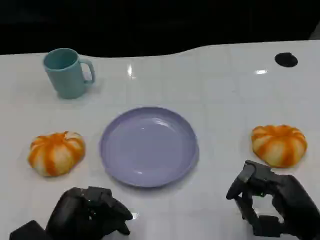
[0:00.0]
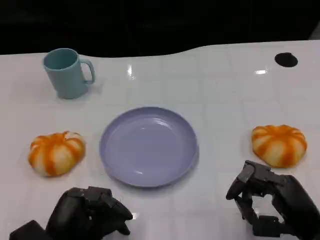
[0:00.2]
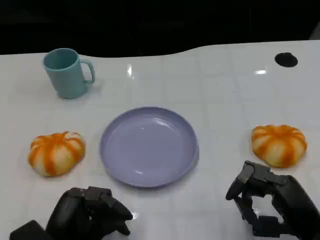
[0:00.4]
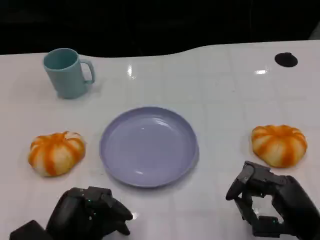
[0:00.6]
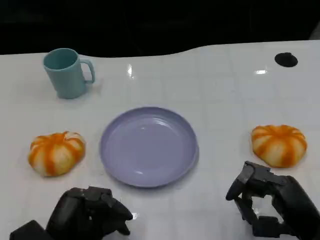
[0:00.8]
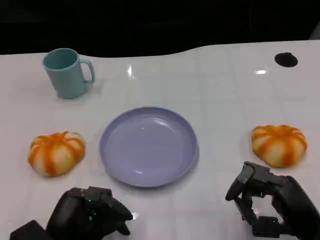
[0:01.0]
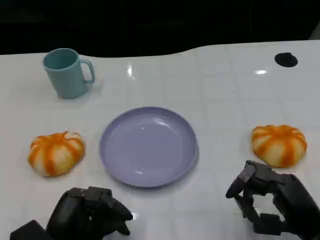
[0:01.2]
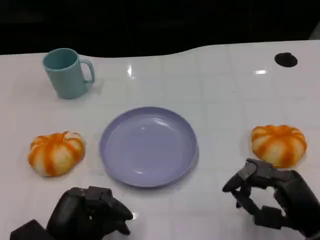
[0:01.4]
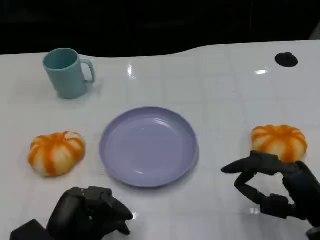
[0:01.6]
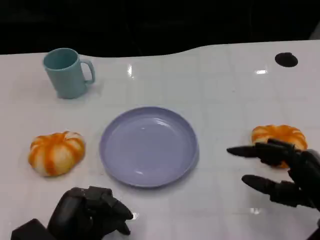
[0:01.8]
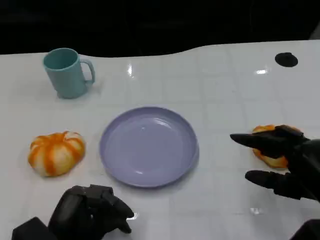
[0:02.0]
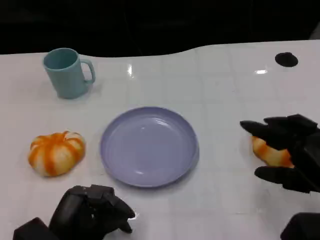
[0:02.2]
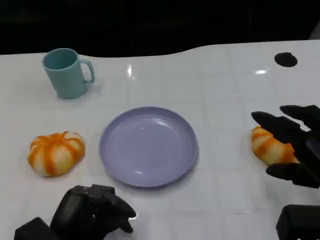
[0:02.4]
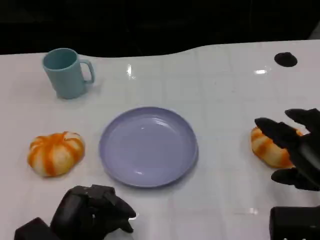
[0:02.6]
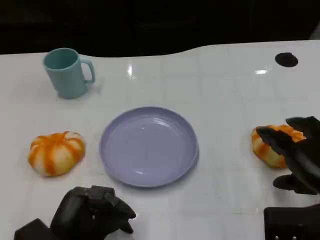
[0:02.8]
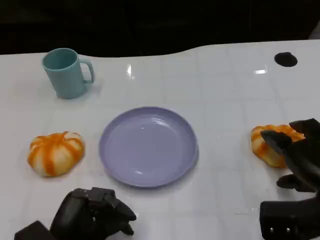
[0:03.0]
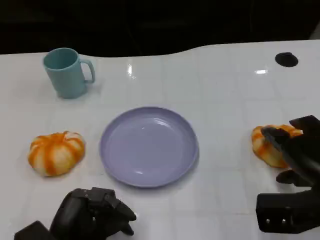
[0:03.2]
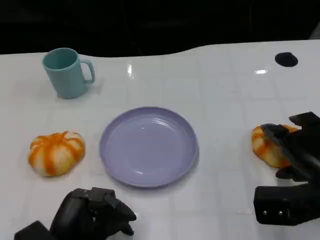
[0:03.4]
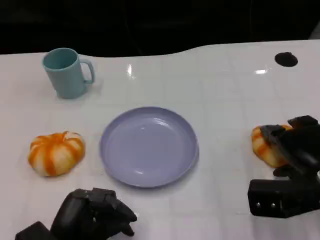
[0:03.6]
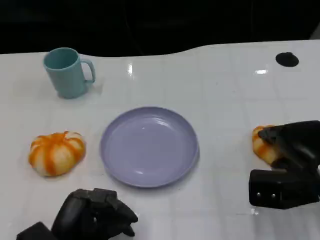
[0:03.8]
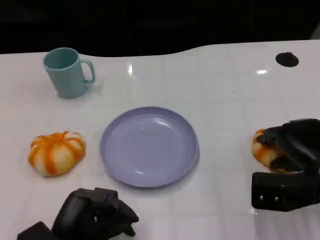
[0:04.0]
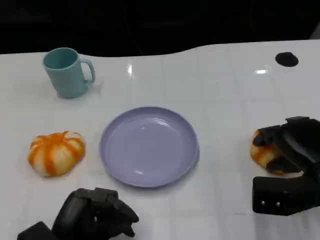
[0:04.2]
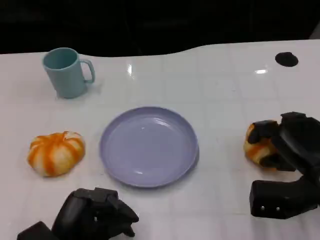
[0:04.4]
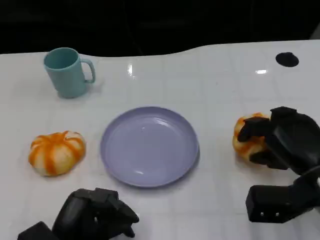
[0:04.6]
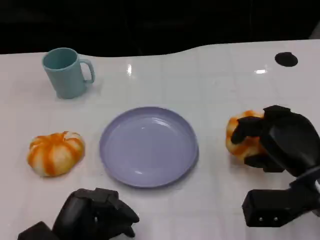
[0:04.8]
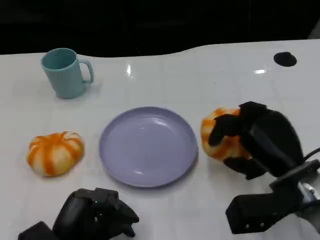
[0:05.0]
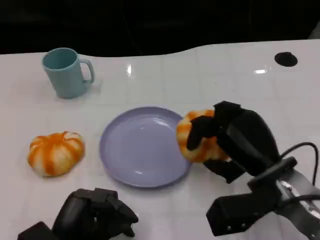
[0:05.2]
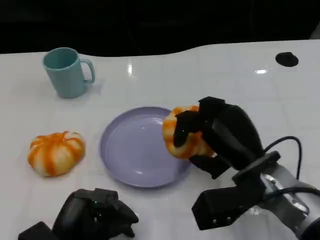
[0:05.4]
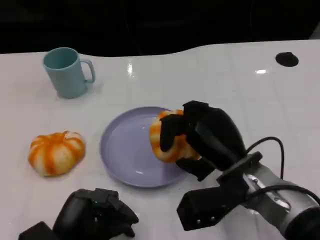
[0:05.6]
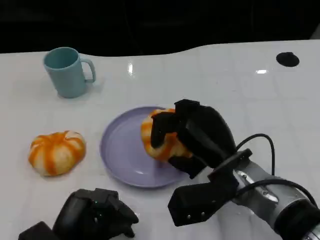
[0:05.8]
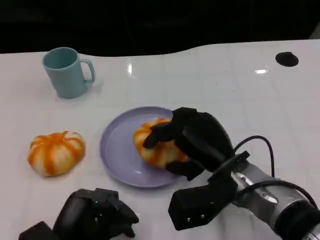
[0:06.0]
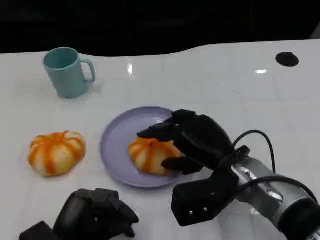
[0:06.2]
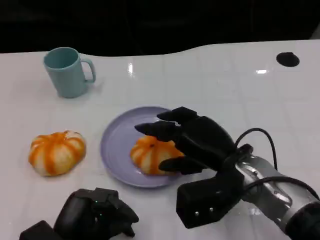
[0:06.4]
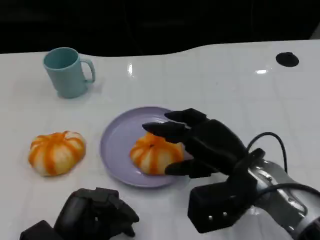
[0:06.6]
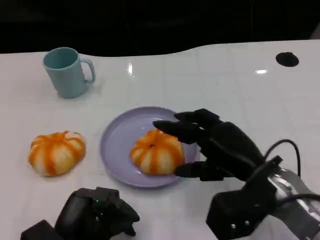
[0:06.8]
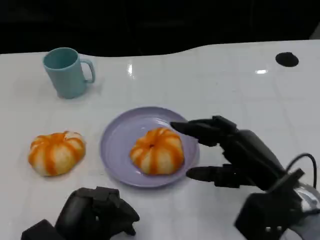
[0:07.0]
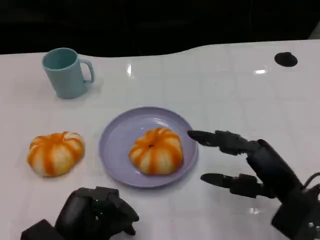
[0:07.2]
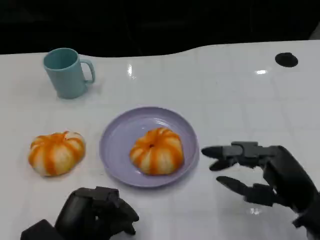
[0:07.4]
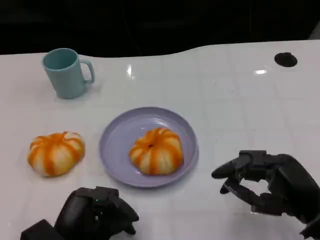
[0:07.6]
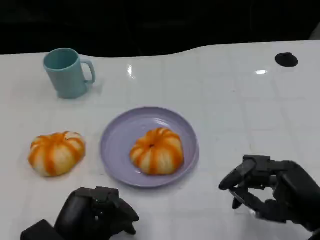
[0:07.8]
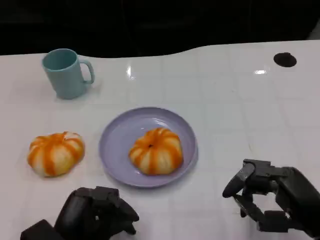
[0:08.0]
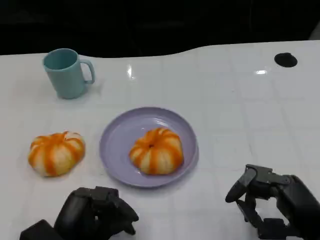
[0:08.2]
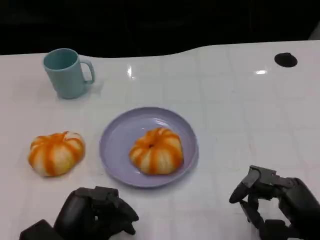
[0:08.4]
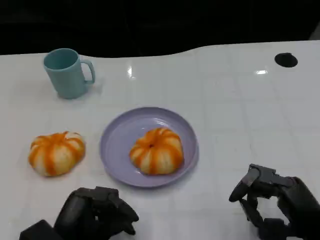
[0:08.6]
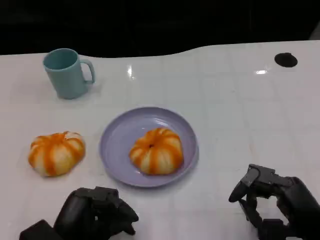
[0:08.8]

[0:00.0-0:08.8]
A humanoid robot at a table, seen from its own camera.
Task of the whole recording: Grasp the bread from the table and place it into the plate.
0:00.0 to 0:01.4: There are only small adjustments of the hands.
0:01.4 to 0:03.0: The right hand changes place by roughly 5 cm.
0:04.4 to 0:05.8: The right hand shifts some 15 cm to the left.
0:05.8 to 0:07.4: The right hand goes some 15 cm to the right and backward.
0:07.4 to 0:08.8: The hands make only small movements.

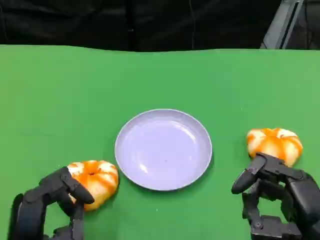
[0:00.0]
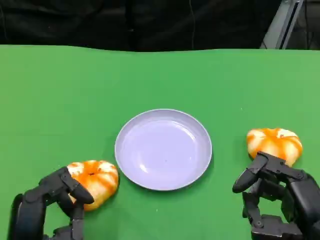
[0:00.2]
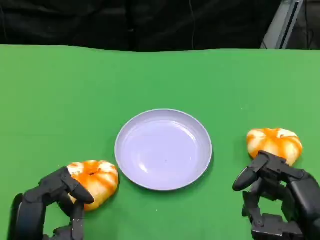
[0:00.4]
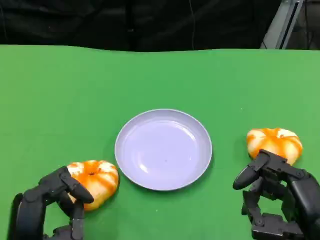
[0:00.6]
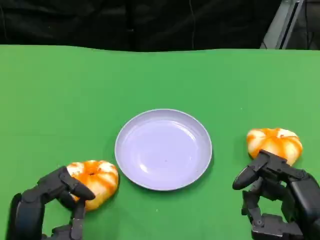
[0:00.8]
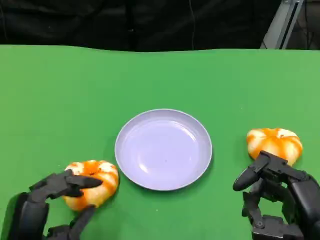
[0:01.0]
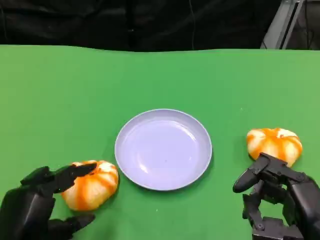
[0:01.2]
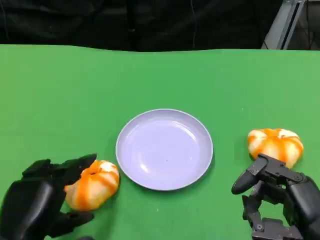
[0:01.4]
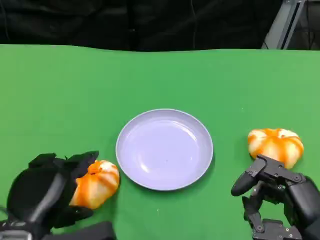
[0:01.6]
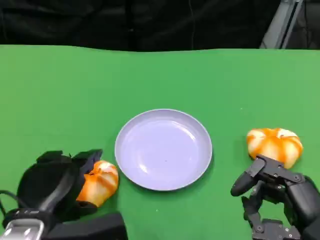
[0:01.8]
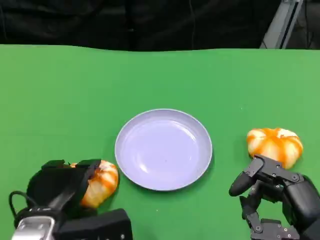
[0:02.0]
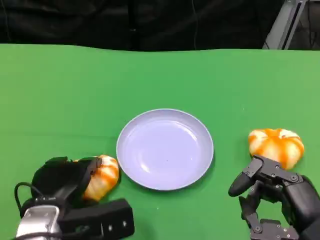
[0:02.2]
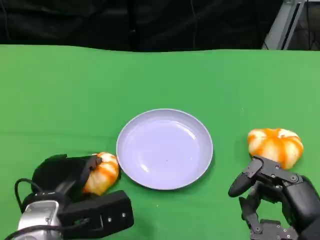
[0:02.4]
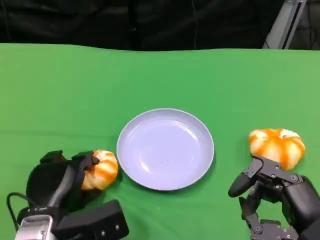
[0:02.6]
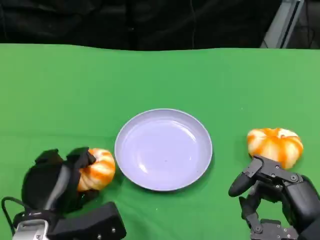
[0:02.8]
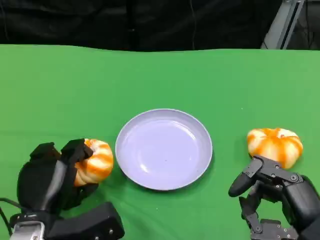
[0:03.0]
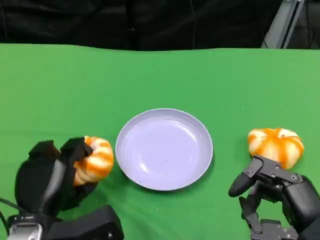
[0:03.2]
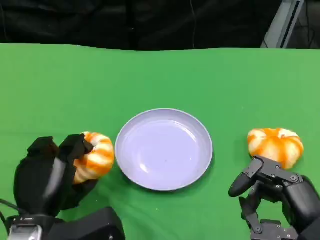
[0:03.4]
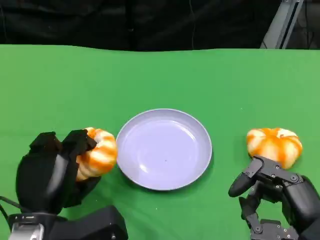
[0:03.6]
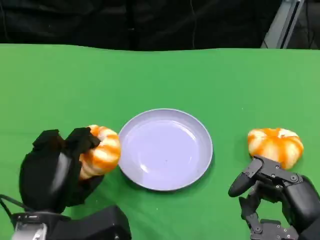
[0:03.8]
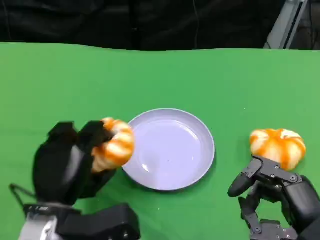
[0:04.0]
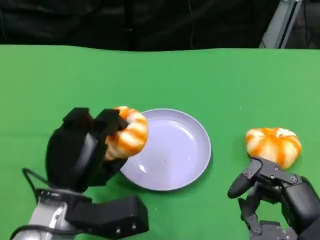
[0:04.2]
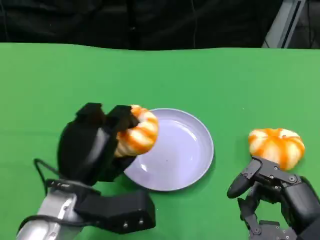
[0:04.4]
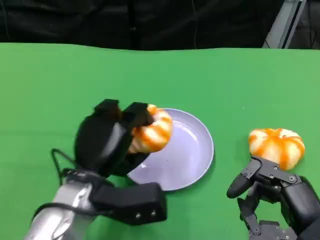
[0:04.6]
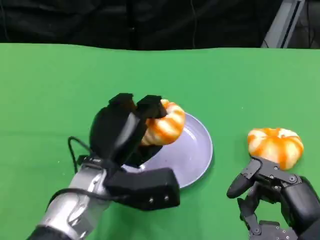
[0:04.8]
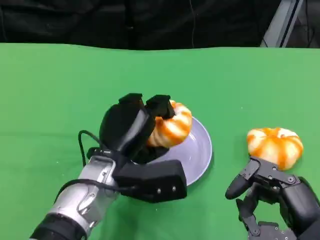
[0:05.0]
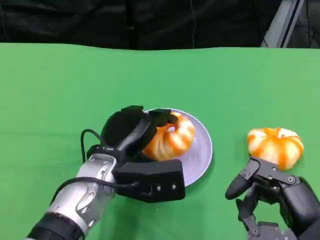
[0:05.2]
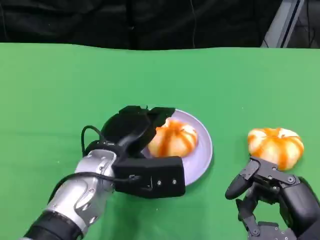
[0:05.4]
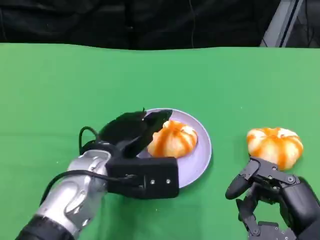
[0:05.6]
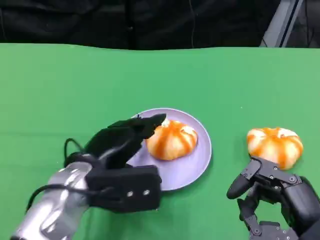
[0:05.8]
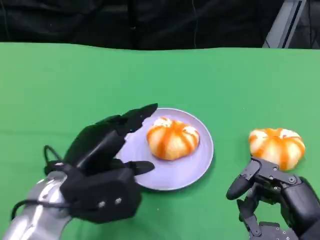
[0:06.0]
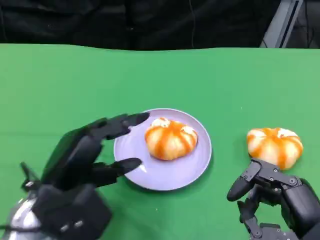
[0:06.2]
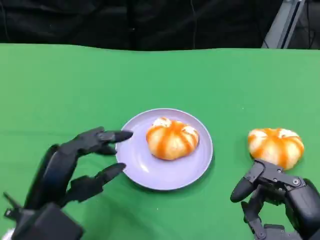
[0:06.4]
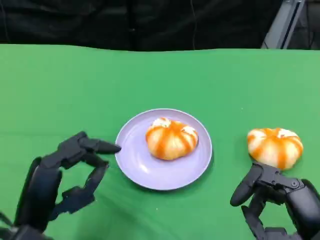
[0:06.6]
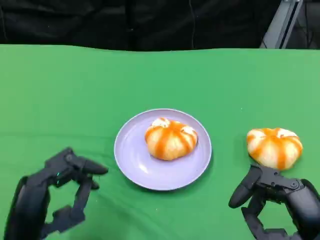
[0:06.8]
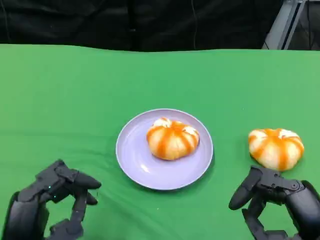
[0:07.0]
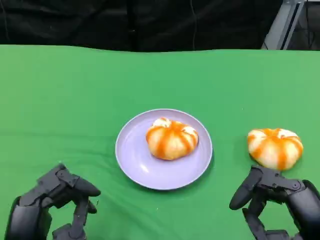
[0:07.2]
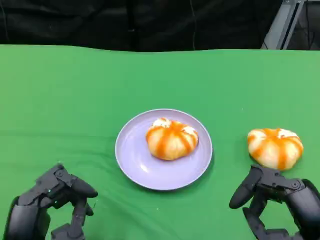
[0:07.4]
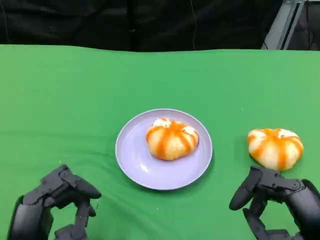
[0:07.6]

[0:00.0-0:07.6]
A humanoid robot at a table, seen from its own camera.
Task of the whole recording: Grasp the bread from the table and place it into the plate.
0:00.0 to 0:01.6: The left hand changes place by about 5 cm.
0:01.6 to 0:03.0: The left hand goes some 5 cm downward.
0:03.0 to 0:04.6: The left hand travels to the right by about 5 cm.
0:04.6 to 0:06.0: The left hand changes place by roughly 5 cm.
0:06.0 to 0:07.6: The left hand goes about 10 cm backward.
